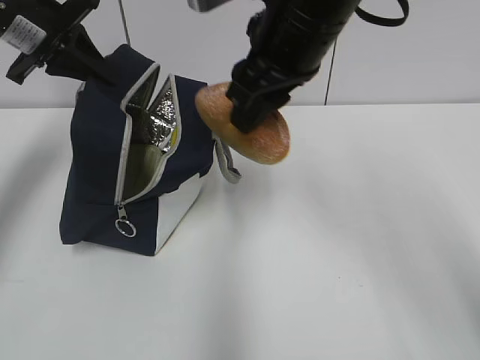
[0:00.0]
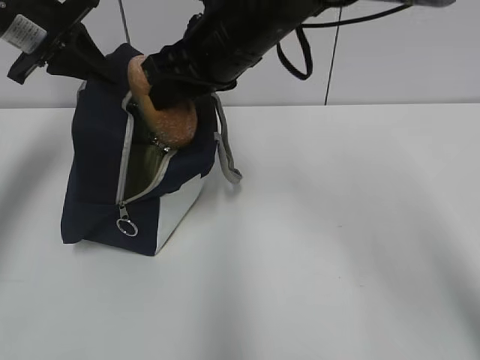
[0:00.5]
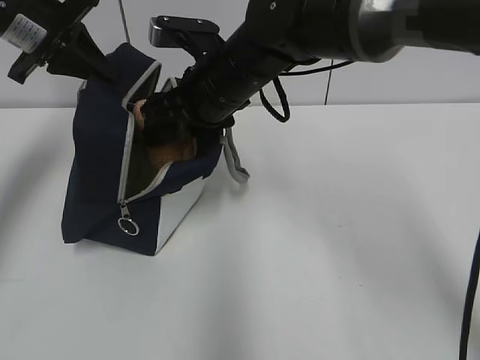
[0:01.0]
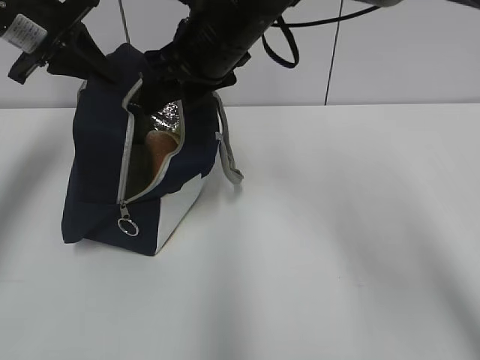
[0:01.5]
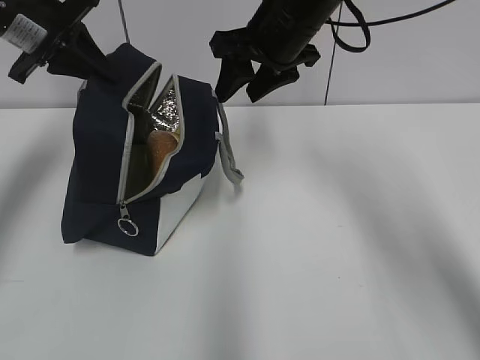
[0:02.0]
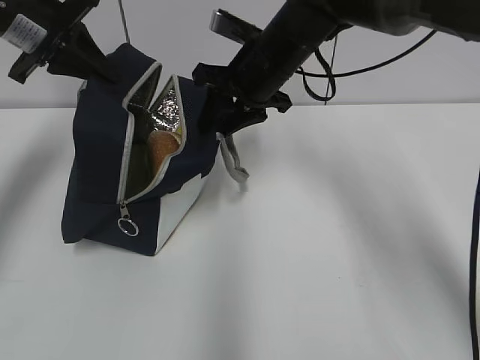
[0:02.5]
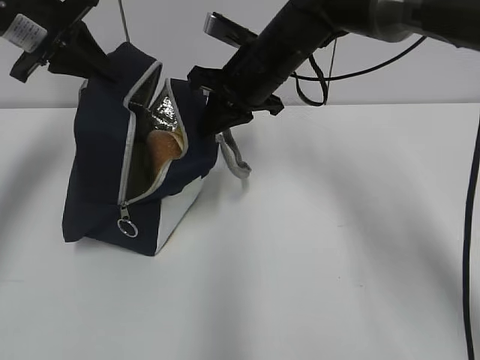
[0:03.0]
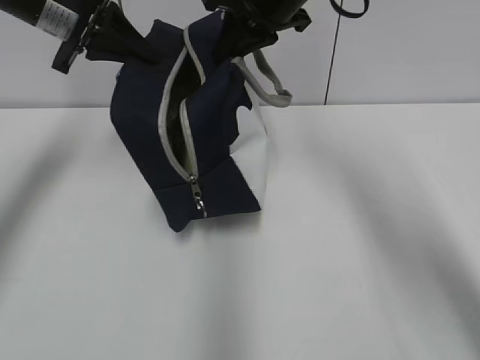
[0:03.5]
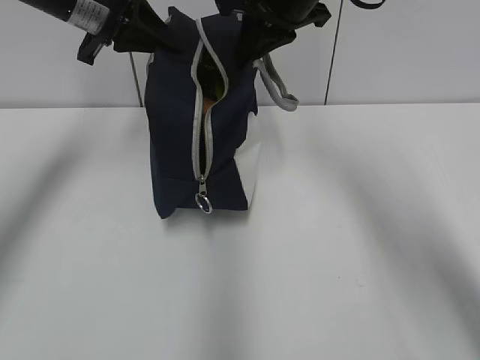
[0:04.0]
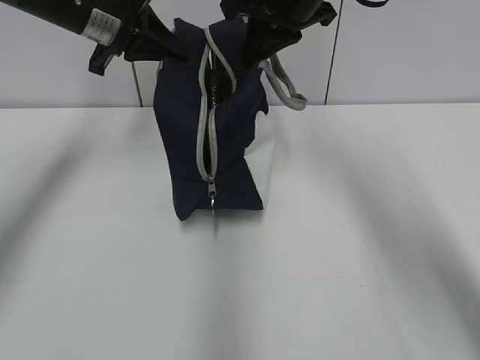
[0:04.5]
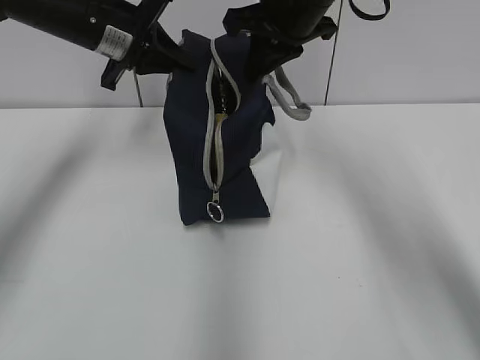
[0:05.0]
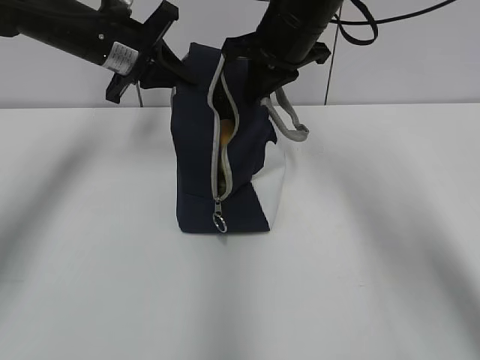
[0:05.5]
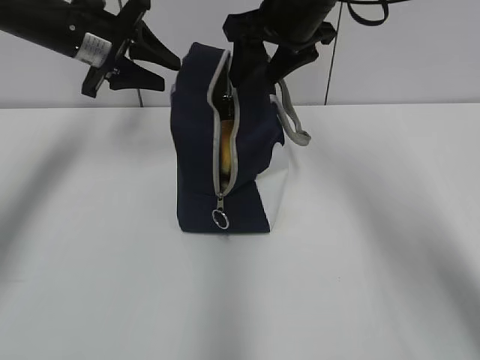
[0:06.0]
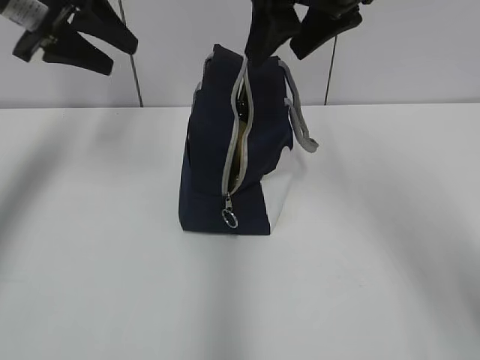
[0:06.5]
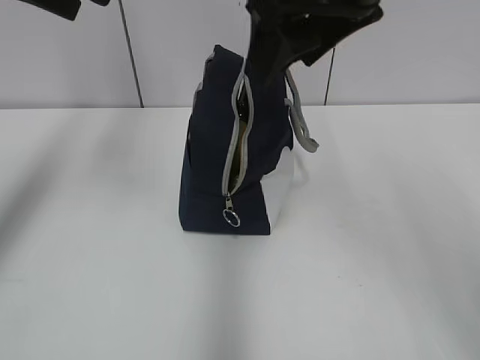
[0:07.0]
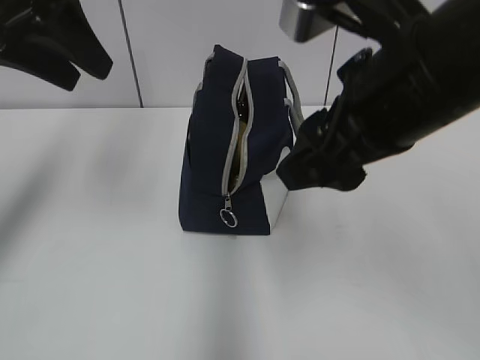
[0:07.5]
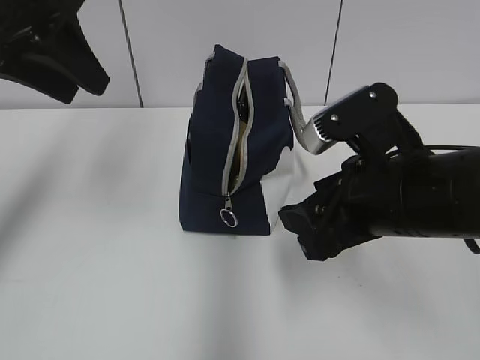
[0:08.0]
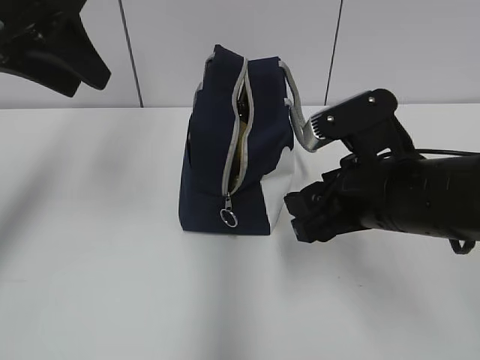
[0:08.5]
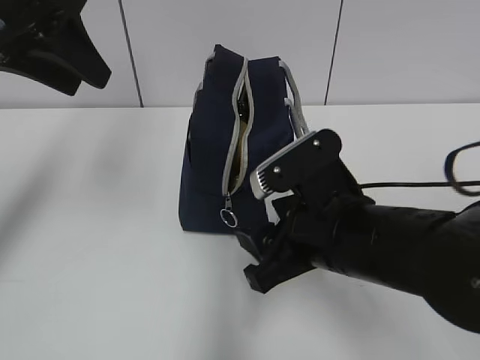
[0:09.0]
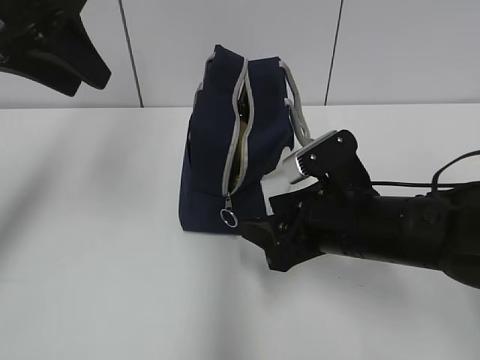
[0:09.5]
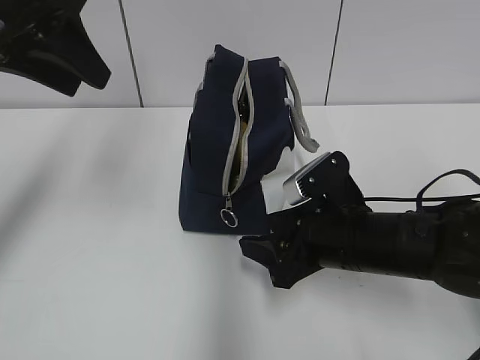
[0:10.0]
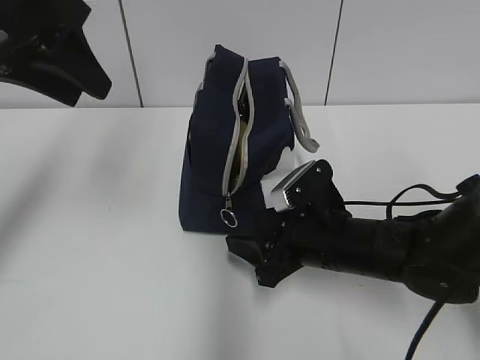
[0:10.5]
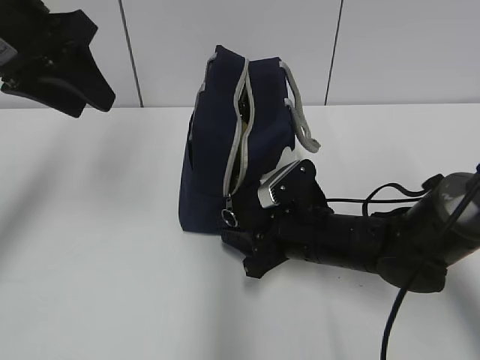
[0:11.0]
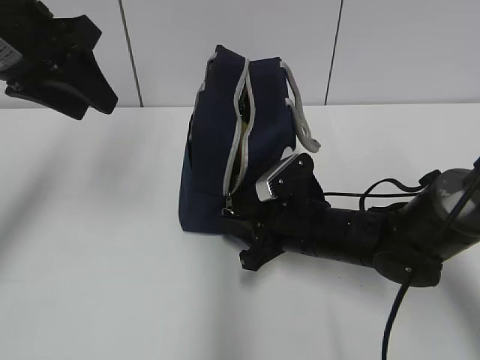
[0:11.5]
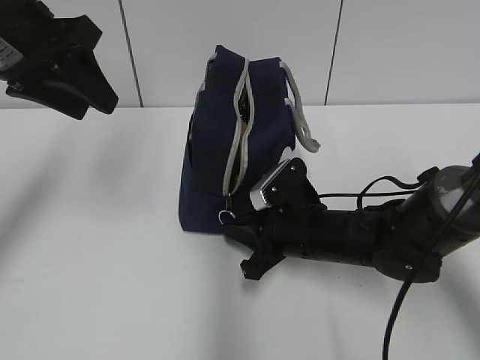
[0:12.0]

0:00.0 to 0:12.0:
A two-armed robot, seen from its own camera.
0:00.0 to 0:02.0: The right gripper heads forward, covering roughly 10 cm.
0:02.0 to 0:04.0: The left gripper moves to the right, about 5 cm. The right gripper closes its fingers.
0:04.0 to 0:06.0: The right gripper opens, while the left gripper goes roughly 5 cm downward, and opens up.
0:06.0 to 0:08.0: The right gripper moves backward and downward, about 20 cm. Meanwhile the left gripper moves backward and upward, roughly 15 cm.
0:08.0 to 0:10.0: The right gripper travels downward by approximately 10 cm.
0:10.0 to 0:12.0: The right gripper moves approximately 5 cm, and closes.

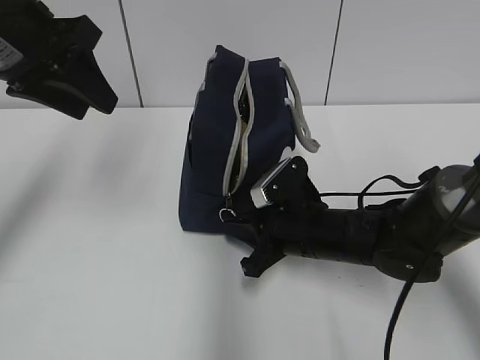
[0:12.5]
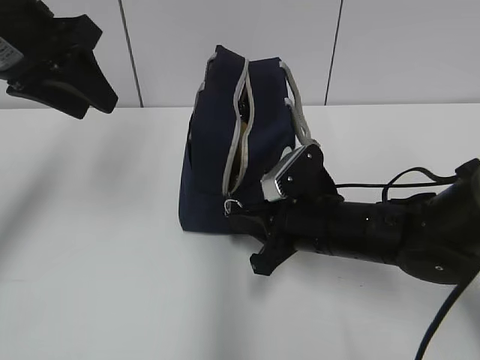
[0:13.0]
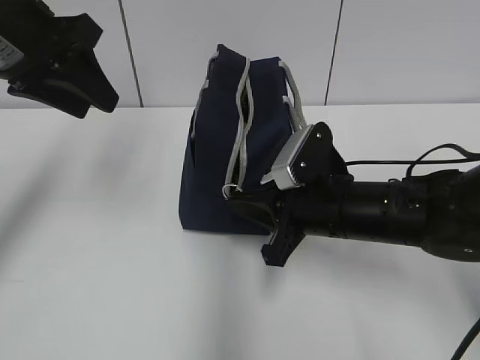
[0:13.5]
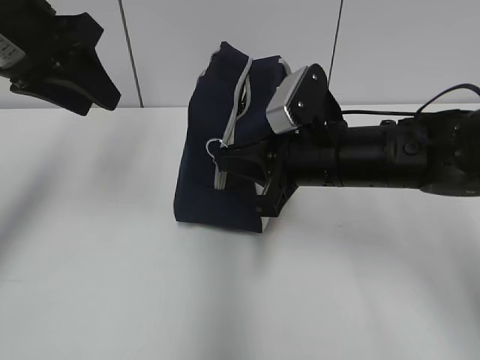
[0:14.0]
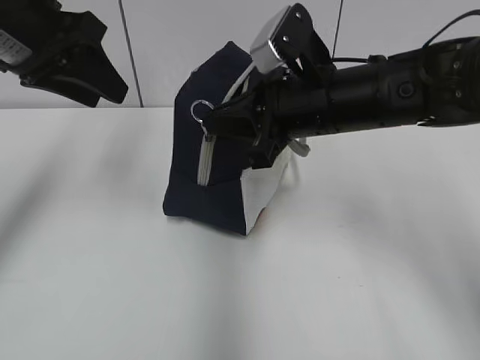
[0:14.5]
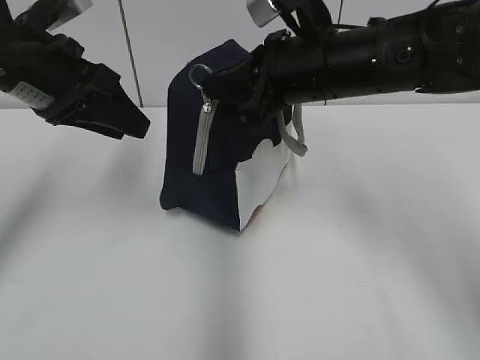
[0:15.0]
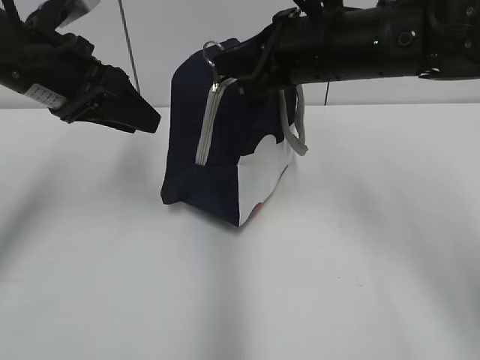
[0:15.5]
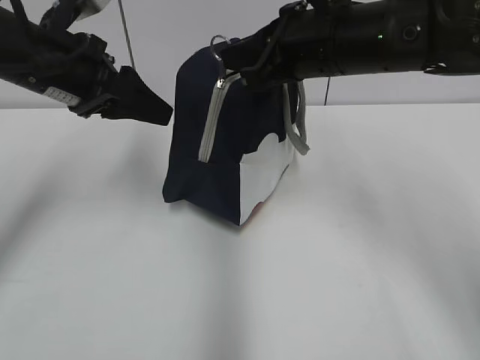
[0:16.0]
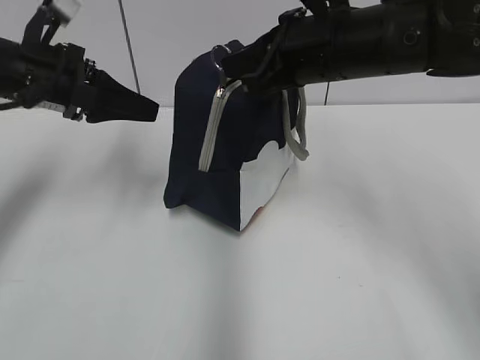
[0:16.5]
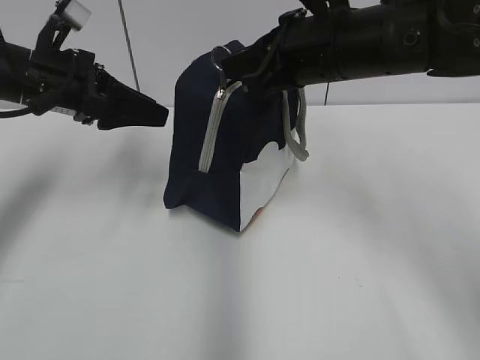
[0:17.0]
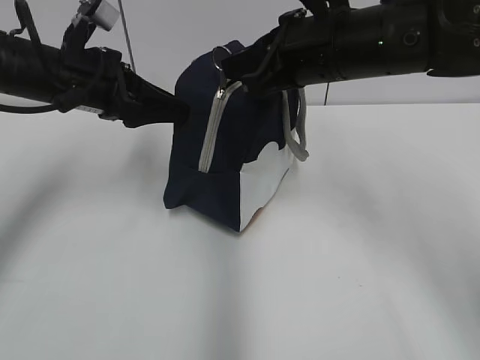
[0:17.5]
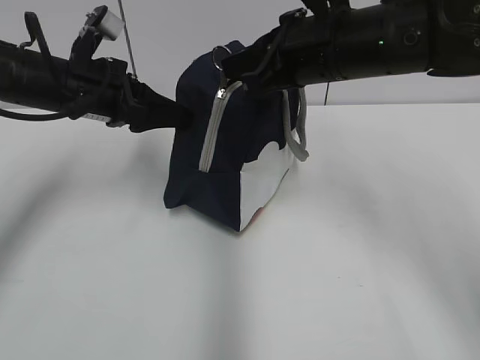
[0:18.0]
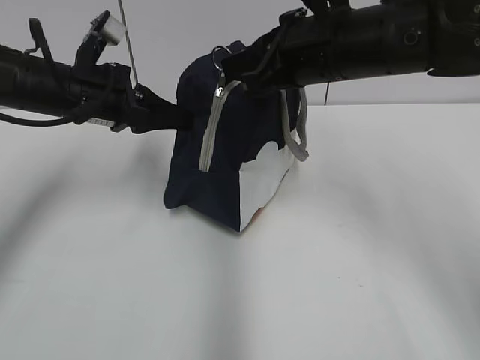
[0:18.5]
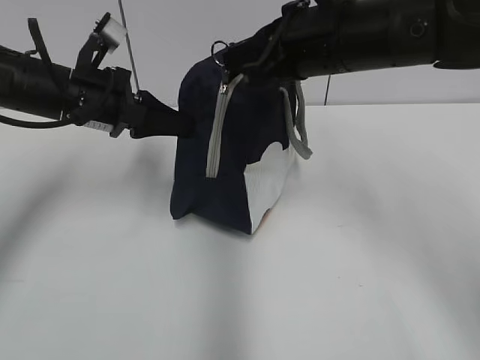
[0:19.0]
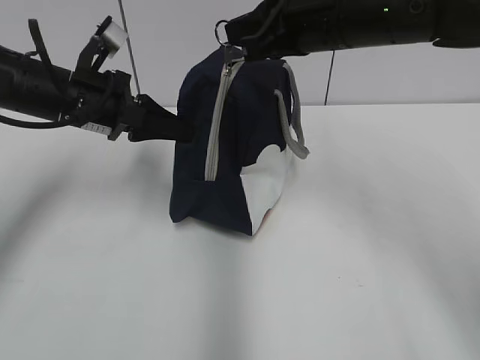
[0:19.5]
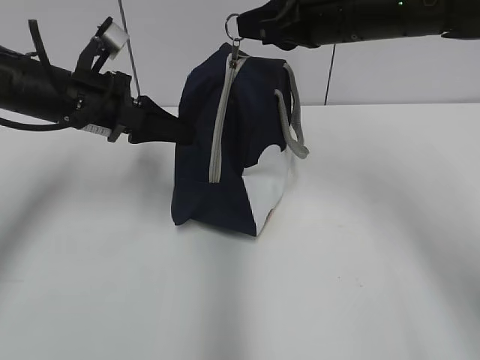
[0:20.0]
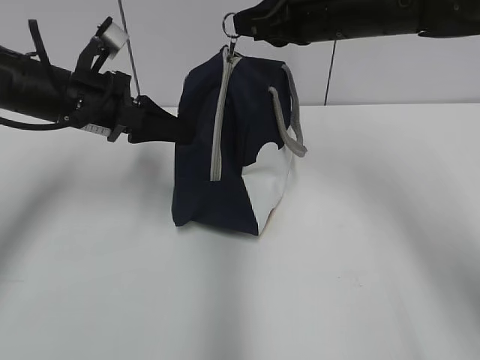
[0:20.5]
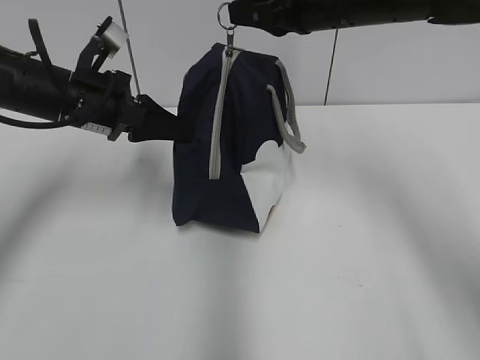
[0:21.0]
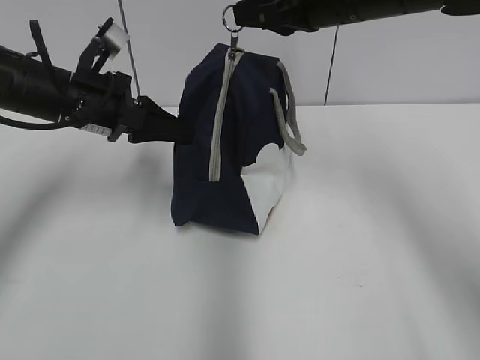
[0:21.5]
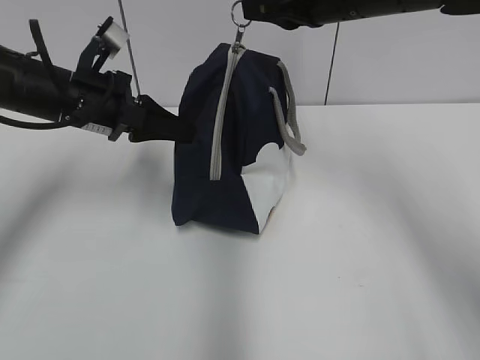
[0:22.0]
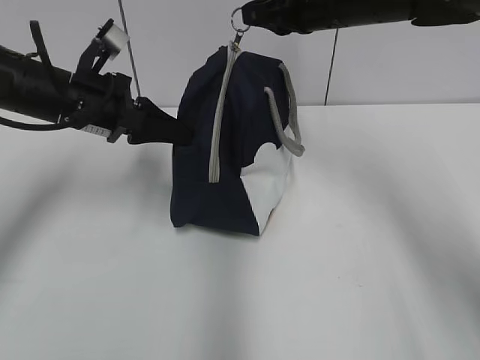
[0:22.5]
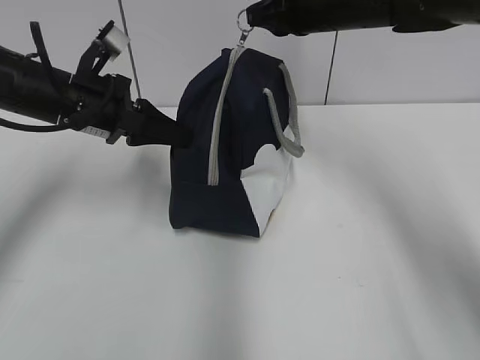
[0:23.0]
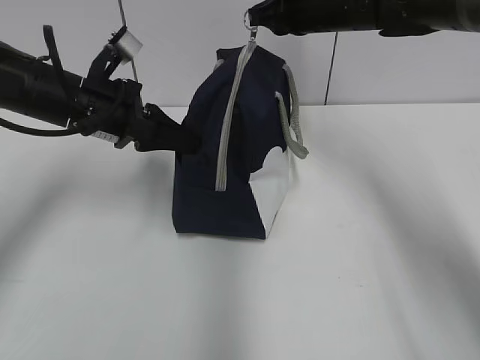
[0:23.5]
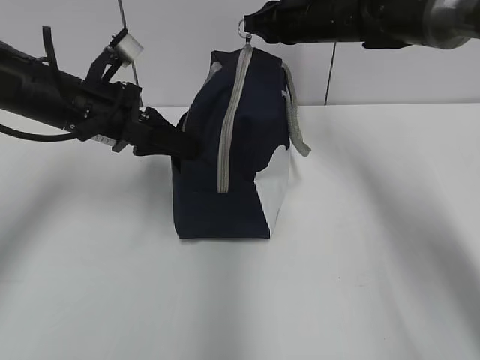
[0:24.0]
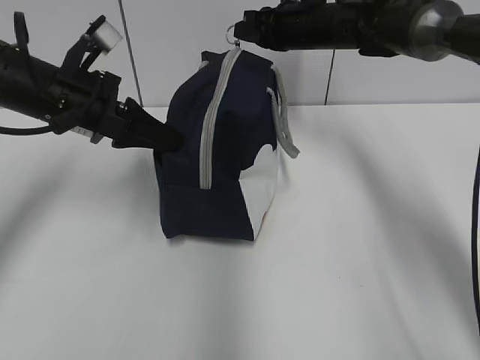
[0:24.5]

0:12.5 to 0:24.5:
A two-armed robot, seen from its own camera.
0:12.5 to 0:14.5: The right gripper travels upward by roughly 15 cm.
0:14.5 to 0:16.5: The left gripper shifts roughly 10 cm downward. The right gripper moves approximately 5 cm.
0:16.5 to 0:18.5: The left gripper moves approximately 5 cm, and closes its fingers.
0:18.5 to 0:20.5: The right gripper is displaced forward by some 5 cm.
0:20.5 to 0:22.5: The grippers make only small movements.
0:22.5 to 0:24.5: The right gripper travels forward and downward by approximately 15 cm.

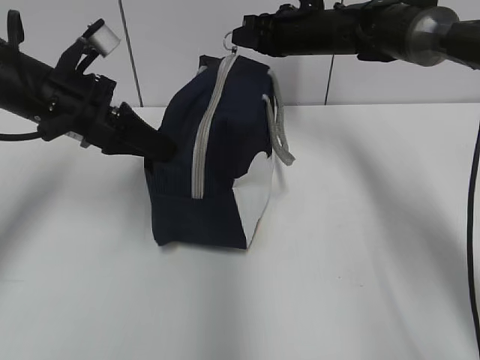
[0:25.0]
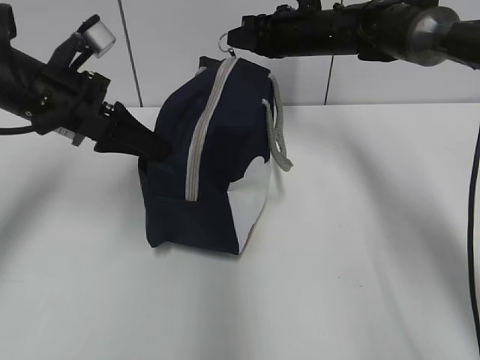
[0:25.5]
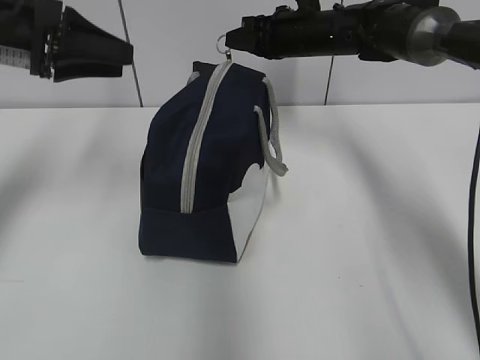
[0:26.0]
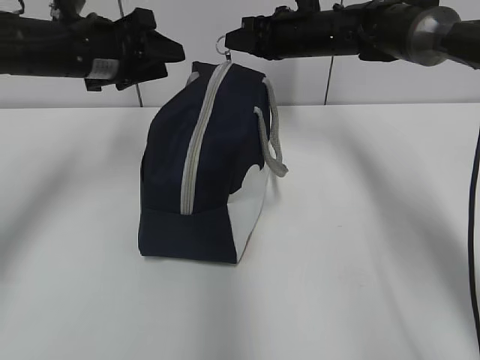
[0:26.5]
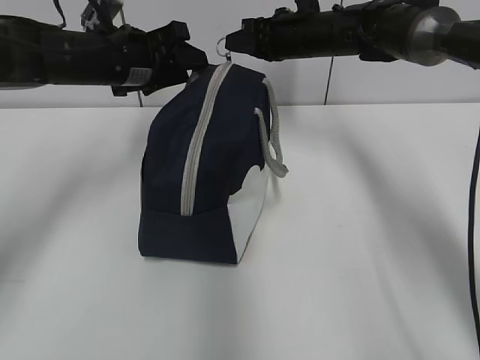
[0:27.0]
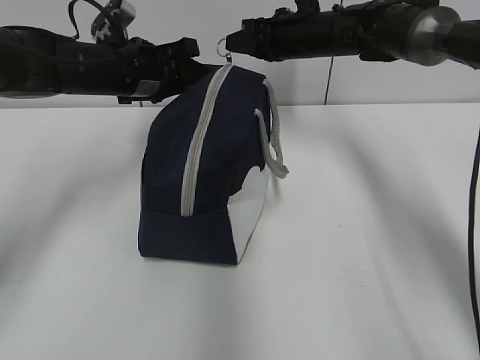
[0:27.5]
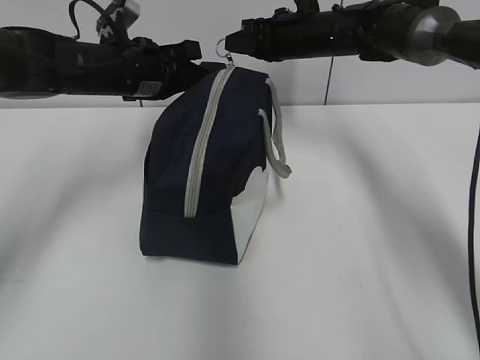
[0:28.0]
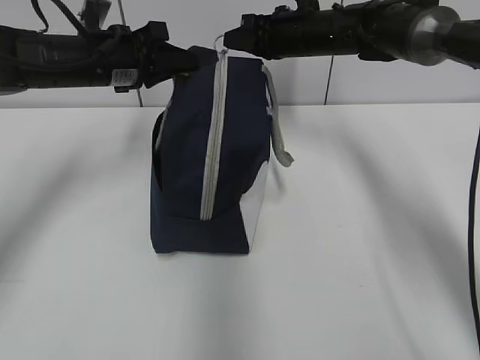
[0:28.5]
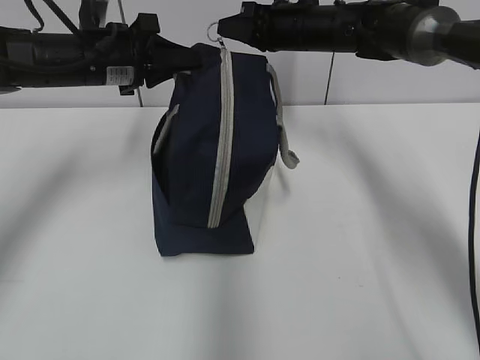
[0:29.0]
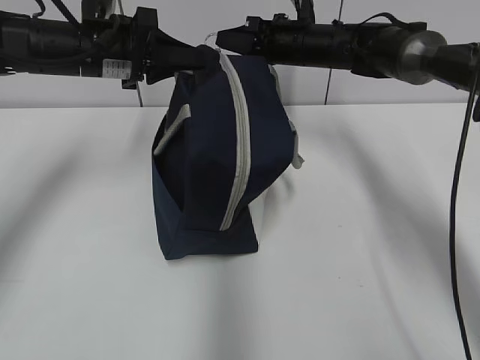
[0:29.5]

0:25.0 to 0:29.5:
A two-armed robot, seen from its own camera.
0:25.0 to 0:27.0: The left gripper moves forward, roughly 10 cm, and opens.
0:27.0 to 0:29.5: The left gripper closes up.
